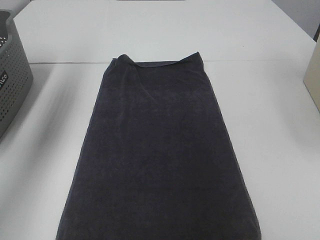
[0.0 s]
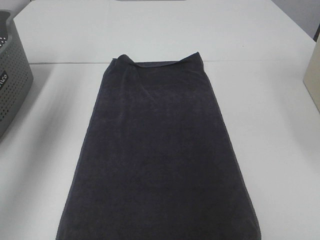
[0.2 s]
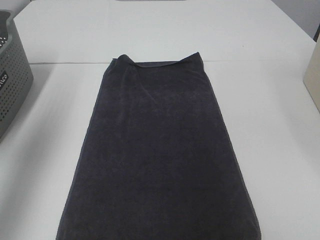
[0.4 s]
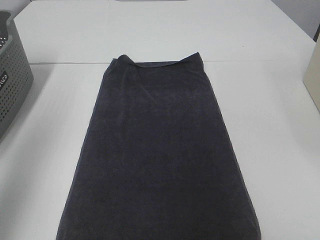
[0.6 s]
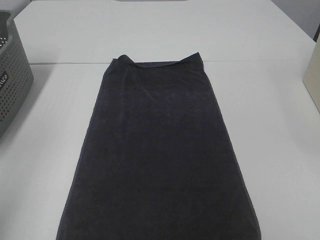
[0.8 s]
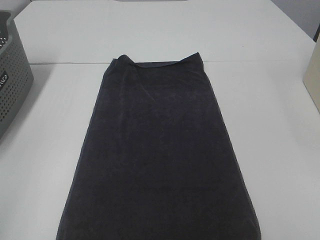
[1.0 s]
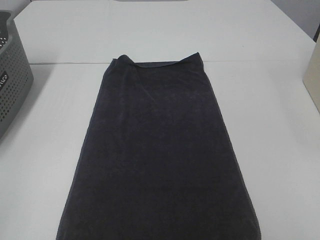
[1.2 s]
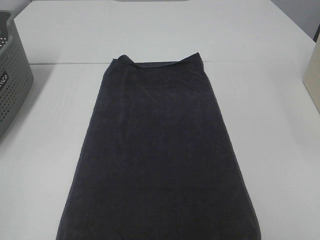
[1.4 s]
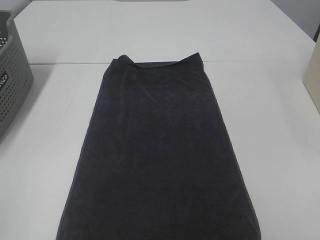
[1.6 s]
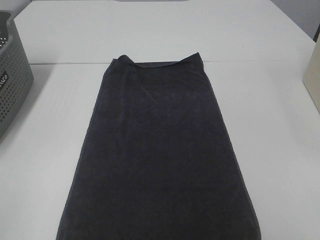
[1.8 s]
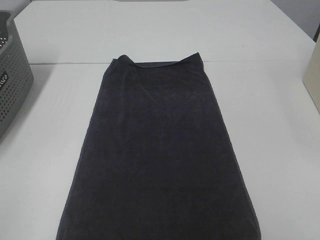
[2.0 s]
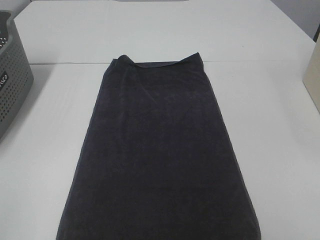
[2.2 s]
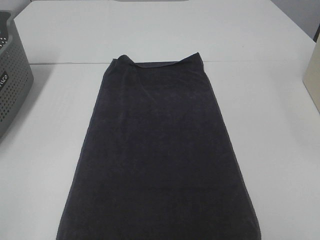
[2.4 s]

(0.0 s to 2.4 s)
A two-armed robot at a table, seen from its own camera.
Task of the whole recording: Remove the towel and place it.
0.0 s - 1.2 s: The left gripper shifts roughly 40 cm backward.

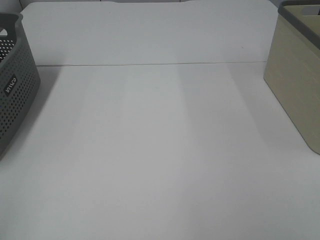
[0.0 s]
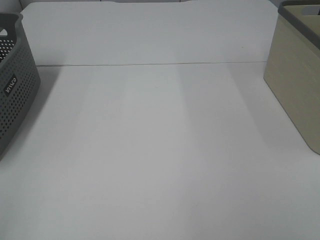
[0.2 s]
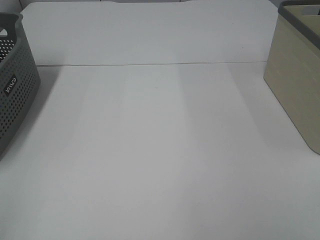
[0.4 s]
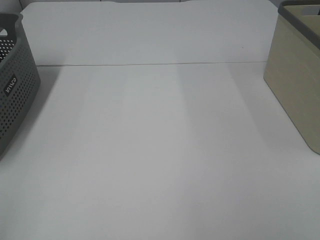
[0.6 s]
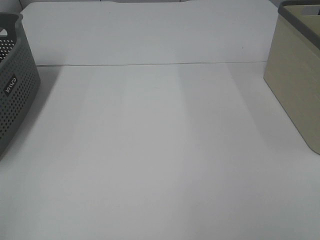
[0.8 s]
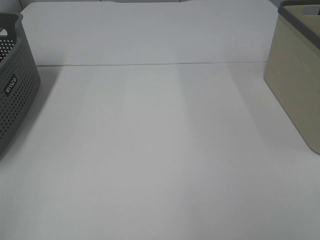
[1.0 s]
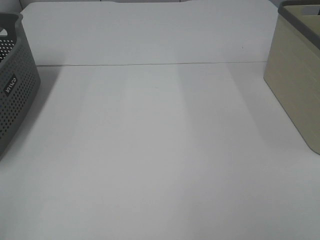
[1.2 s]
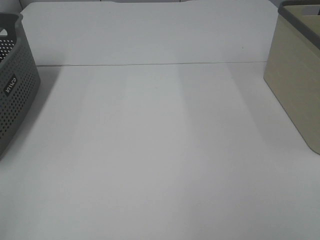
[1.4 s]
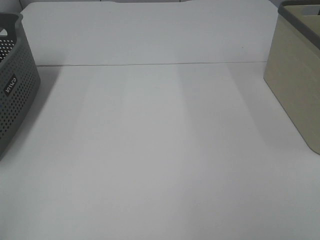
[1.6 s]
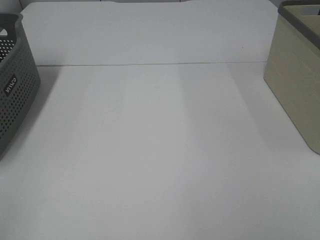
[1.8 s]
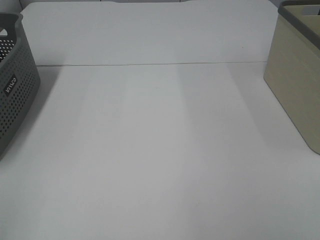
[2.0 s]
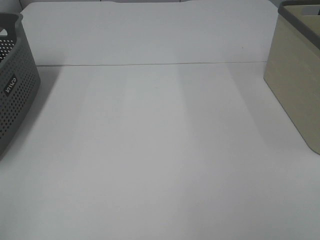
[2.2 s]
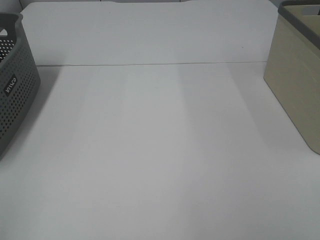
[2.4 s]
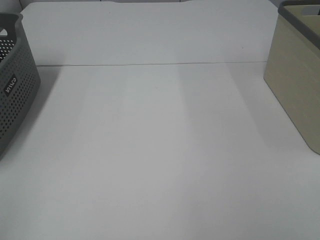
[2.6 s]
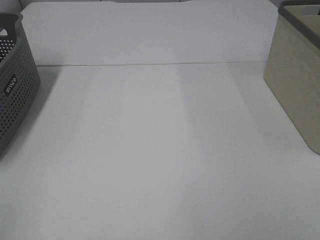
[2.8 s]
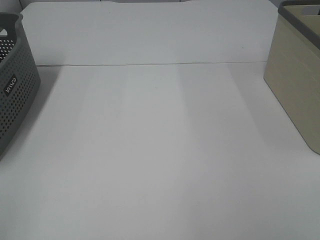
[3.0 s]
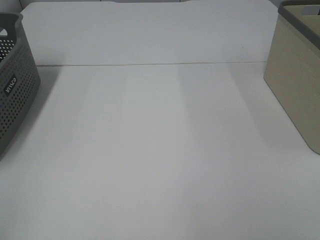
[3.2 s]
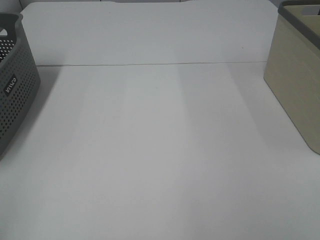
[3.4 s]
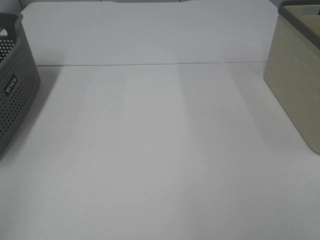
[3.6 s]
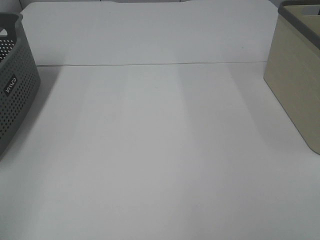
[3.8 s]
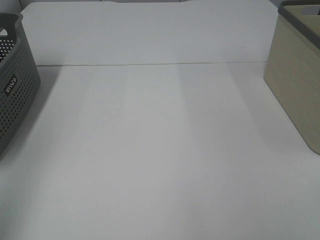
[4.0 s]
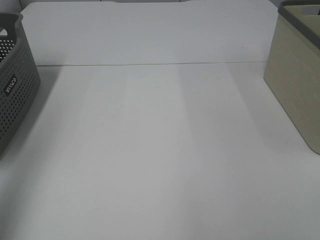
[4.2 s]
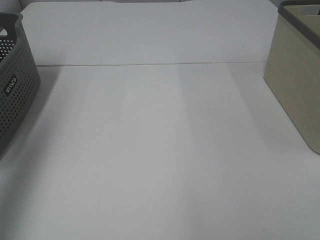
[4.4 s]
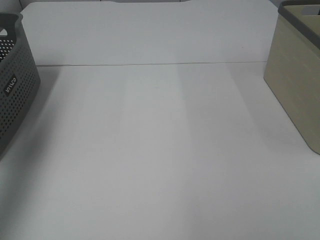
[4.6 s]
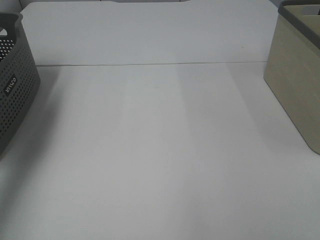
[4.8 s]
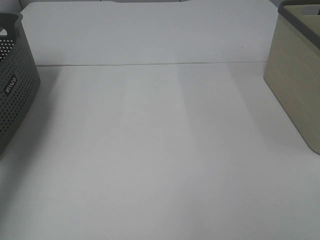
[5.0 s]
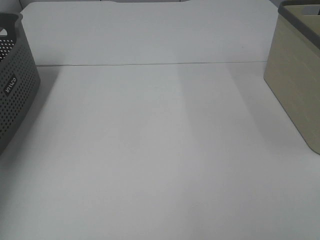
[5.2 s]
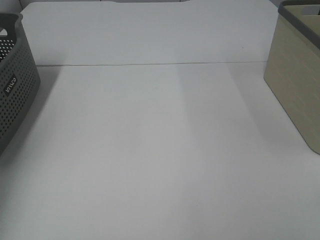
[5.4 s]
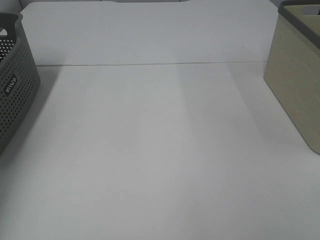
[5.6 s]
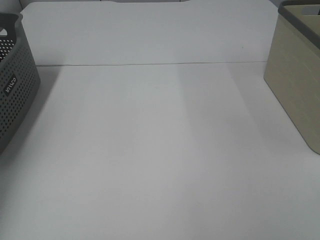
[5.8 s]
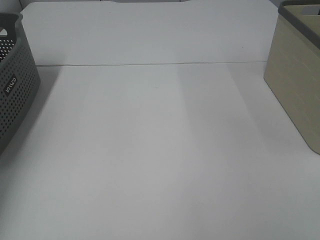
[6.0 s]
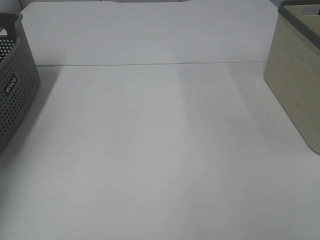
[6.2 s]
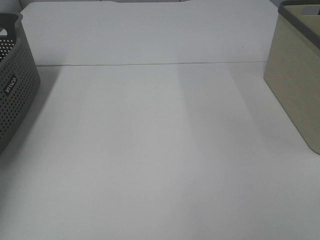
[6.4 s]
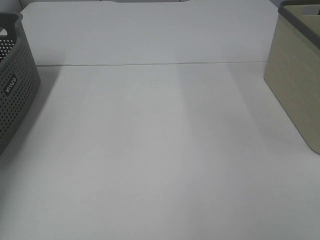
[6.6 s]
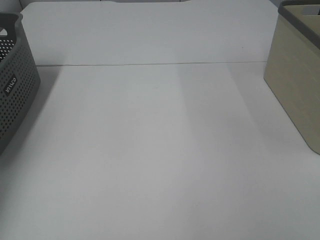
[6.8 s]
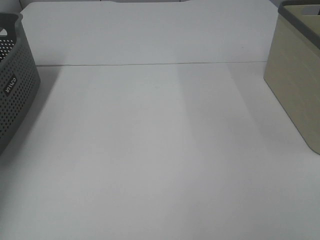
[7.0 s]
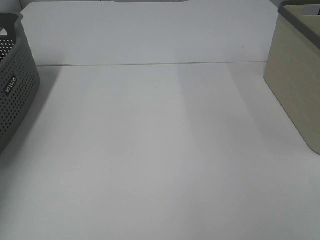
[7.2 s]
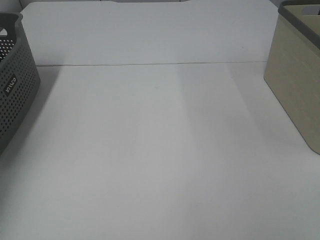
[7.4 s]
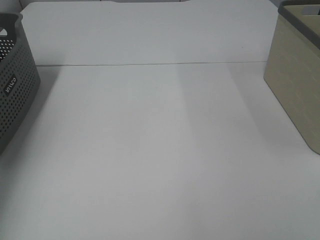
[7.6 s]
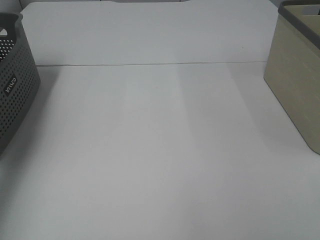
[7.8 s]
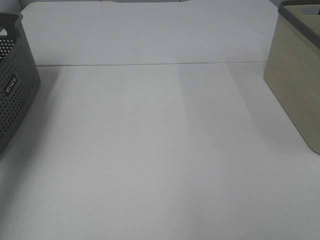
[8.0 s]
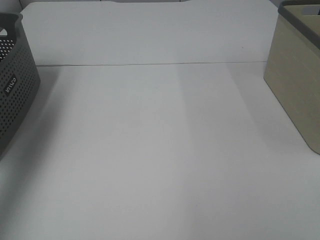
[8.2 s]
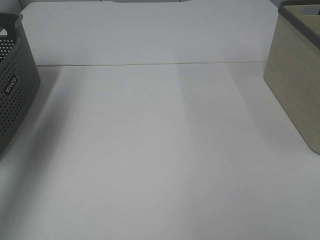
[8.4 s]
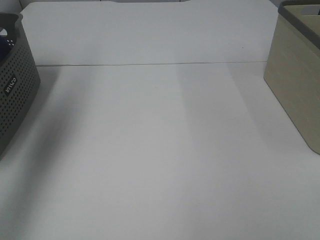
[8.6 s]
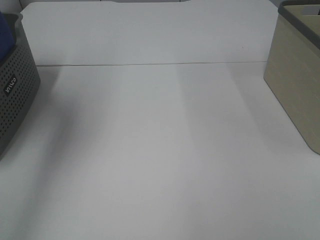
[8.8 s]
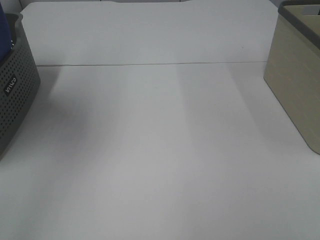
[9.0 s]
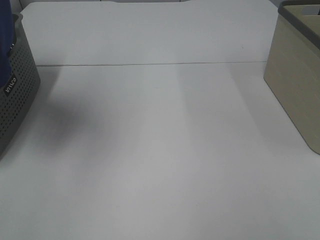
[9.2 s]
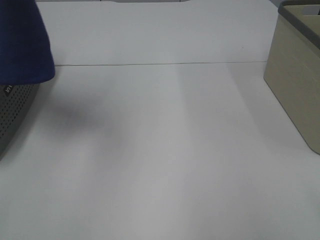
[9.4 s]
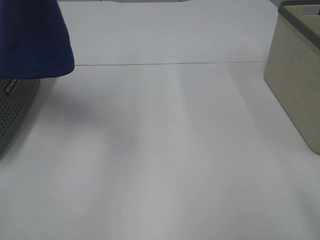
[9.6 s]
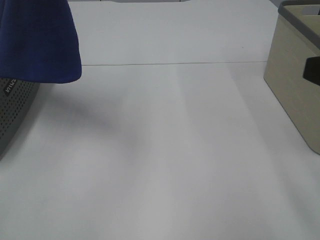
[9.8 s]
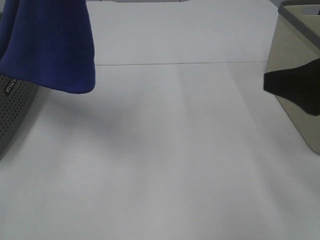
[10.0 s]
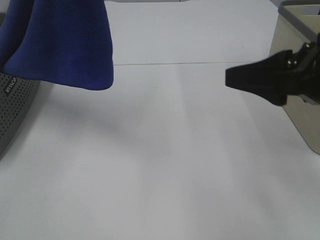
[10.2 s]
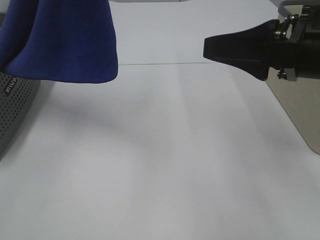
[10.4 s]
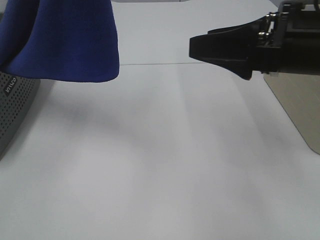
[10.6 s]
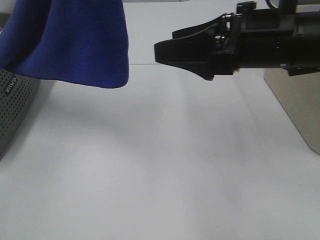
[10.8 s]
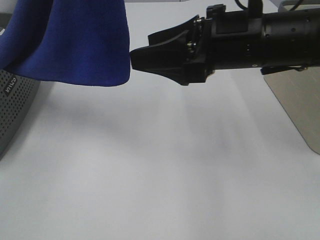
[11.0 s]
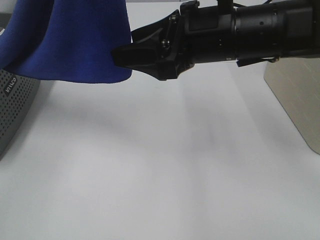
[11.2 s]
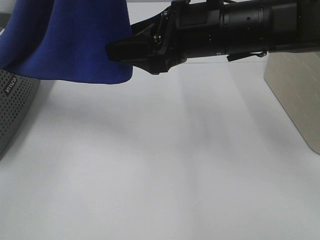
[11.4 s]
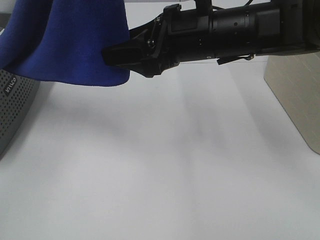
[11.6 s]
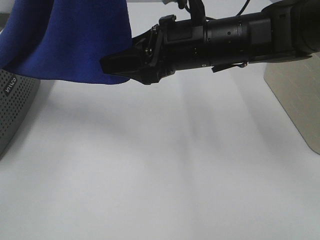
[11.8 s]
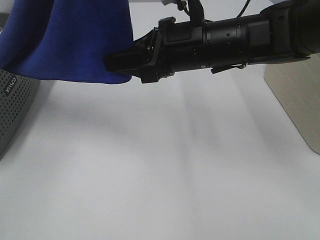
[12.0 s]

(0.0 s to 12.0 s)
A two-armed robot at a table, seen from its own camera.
Task of the whole recording: Remove the towel and place it.
0.0 s - 3.0 s: Both grippers stay put.
3.0 s - 4.4 s: The left gripper is displaced forward and upward by approximately 25 cm.
4.4 s - 6.0 s: The left gripper goes some 30 cm downward and forward.
7.6 s - 9.0 s: The left gripper travels upward, to the right and backward by some 30 cm.
9.0 s - 10.4 s: The left gripper goes approximately 15 cm to the right and backward, while the right gripper heads forward and to the left, covering about 25 cm.
10.4 s - 12.0 s: The right gripper travels to the left and forward by approximately 15 cm, and closes.

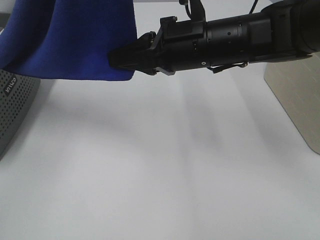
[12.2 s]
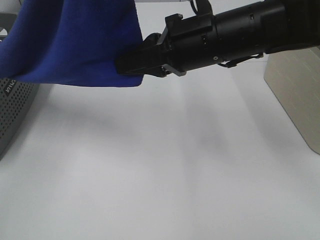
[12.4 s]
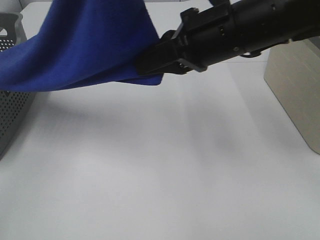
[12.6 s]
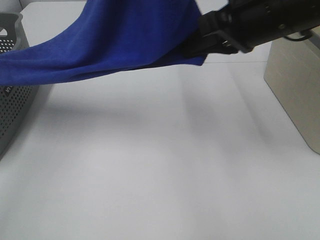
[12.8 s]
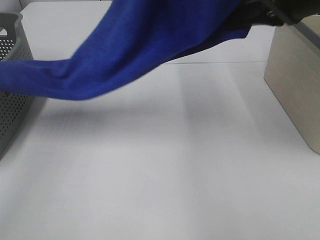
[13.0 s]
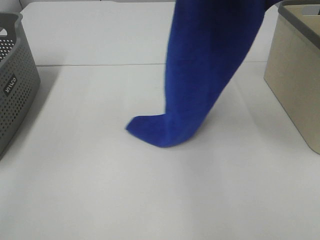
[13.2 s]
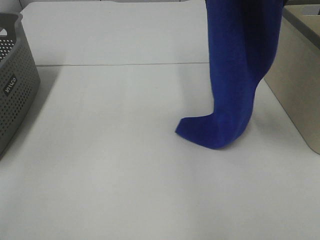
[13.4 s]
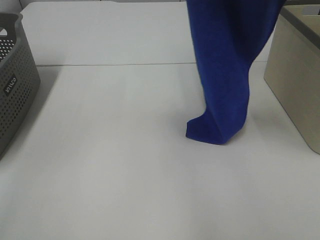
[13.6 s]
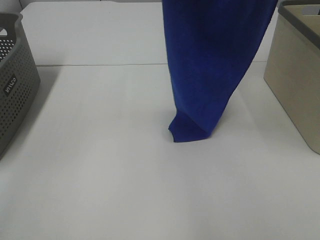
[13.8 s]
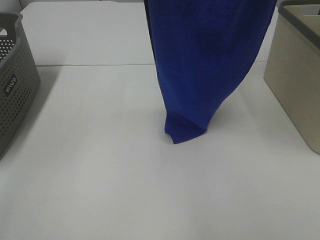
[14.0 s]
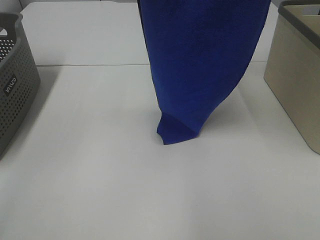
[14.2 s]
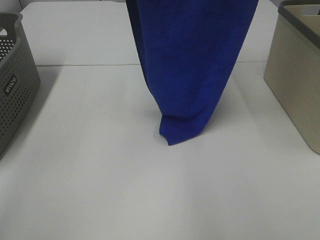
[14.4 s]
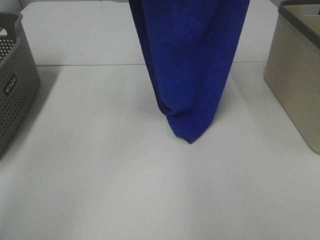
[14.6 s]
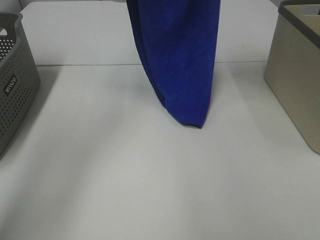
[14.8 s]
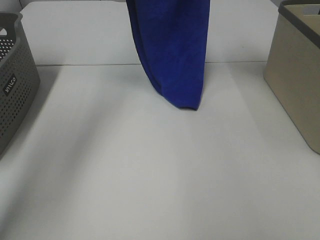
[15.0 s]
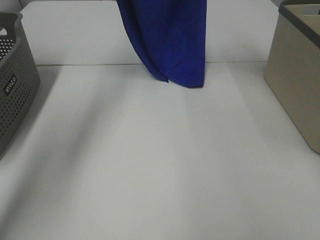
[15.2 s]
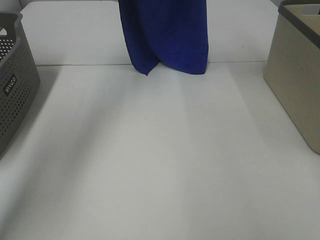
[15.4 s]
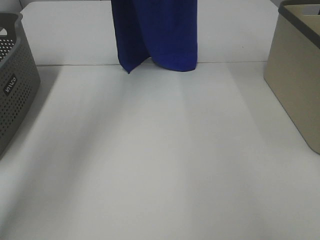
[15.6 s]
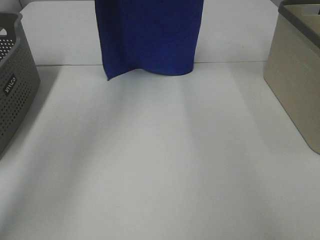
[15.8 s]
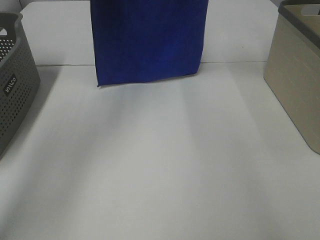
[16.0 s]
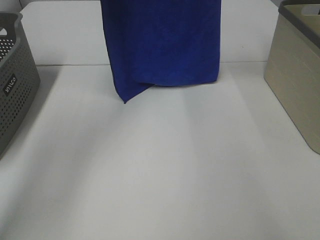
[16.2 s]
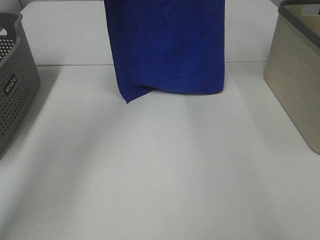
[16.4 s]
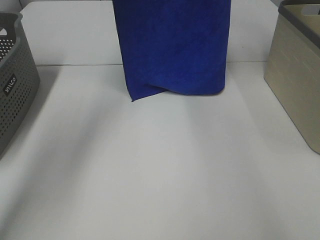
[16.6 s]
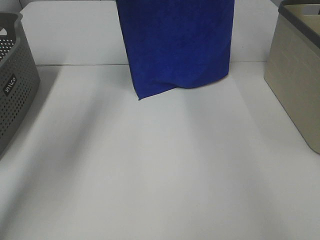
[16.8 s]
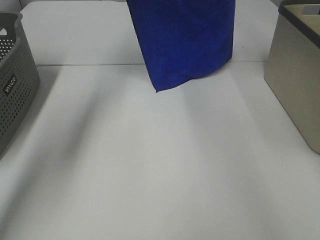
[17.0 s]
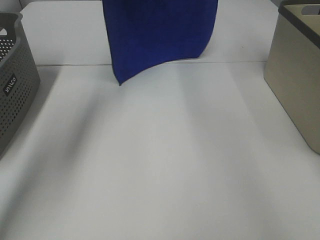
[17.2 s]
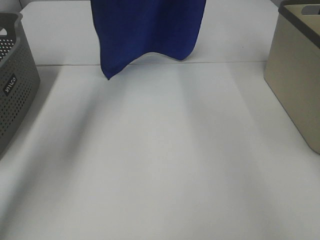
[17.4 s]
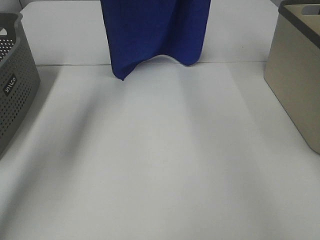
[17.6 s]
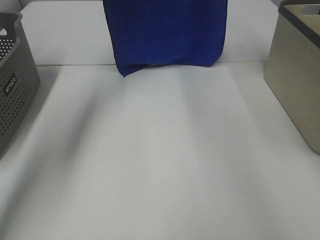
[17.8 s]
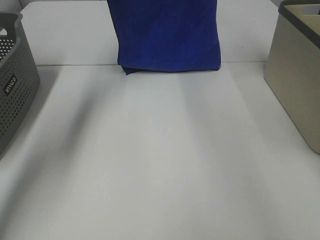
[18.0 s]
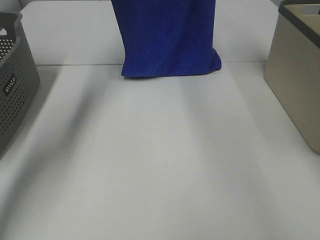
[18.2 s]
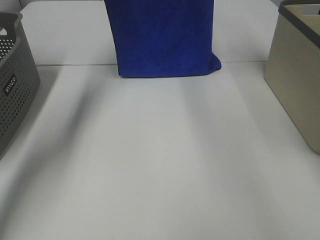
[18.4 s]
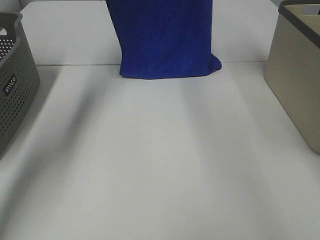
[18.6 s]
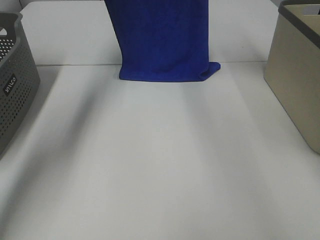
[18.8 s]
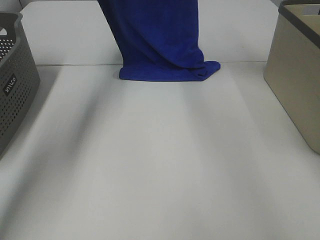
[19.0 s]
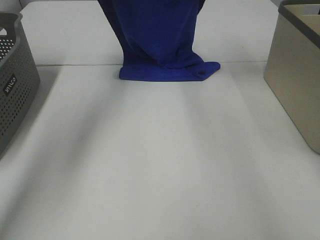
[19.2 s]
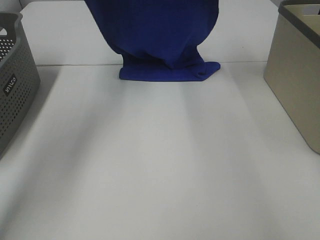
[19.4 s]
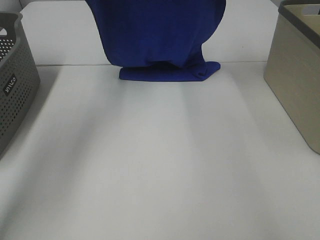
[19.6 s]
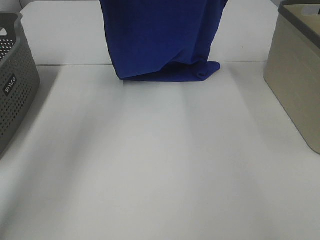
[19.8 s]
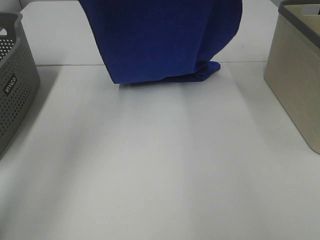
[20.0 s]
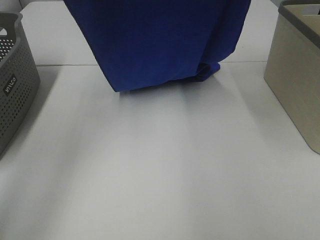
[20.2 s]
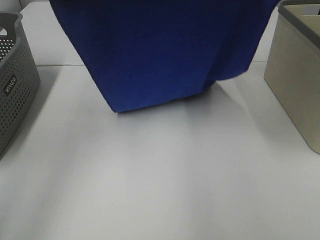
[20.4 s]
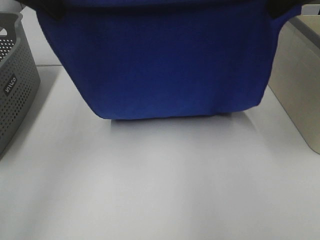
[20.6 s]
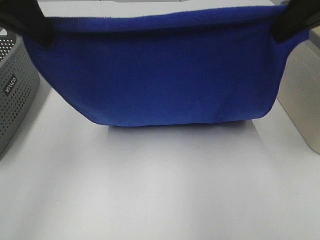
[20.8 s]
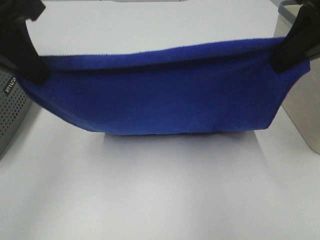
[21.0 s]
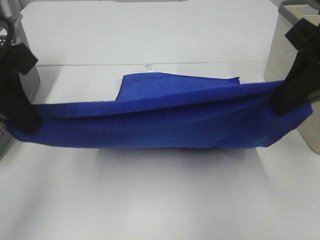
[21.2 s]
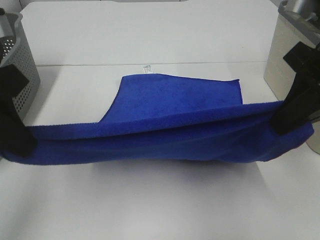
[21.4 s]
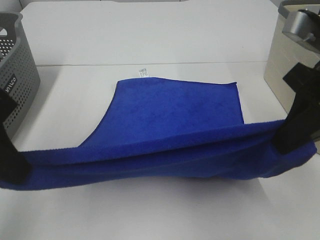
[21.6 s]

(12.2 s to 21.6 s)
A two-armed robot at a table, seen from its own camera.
Task of the whole recording: Remove the towel and place it.
Step, 13.0 s - 20.2 s: Left hand: spread the blue towel flat on the table.
Step, 13.0 s - 20.6 s: Right hand: spread the blue towel flat on the table.
12.2 s - 13.8 s: The right gripper is displaced upward and to the right by approximately 30 cm. Meanwhile the left gripper is displaced forward by roughly 5 cm.
13.8 s - 15.4 s: Both grippers move forward, roughly 20 cm.
15.4 s - 17.0 s: The left gripper changes place by approximately 5 cm. The right gripper is displaced to the right and forward by about 10 cm.
17.0 s - 18.4 s: The grippers stay close to where they were, moving slightly.
18.4 s - 20.0 s: Both grippers travel together backward, approximately 15 cm.
20.0 s - 21.6 s: Both grippers move backward and downward, roughly 25 cm.
